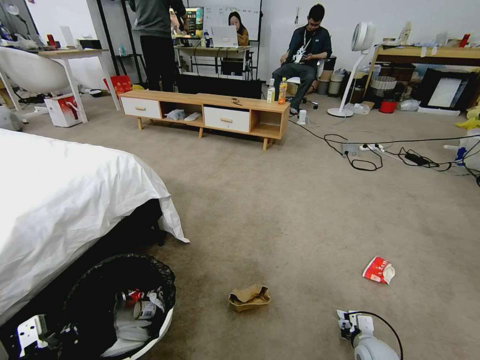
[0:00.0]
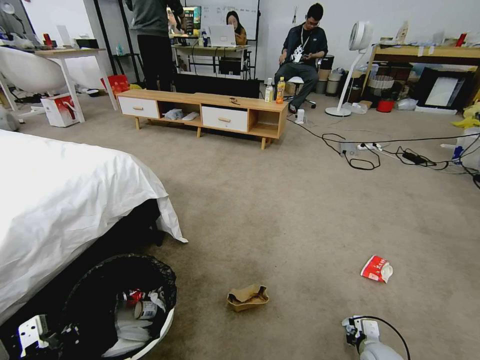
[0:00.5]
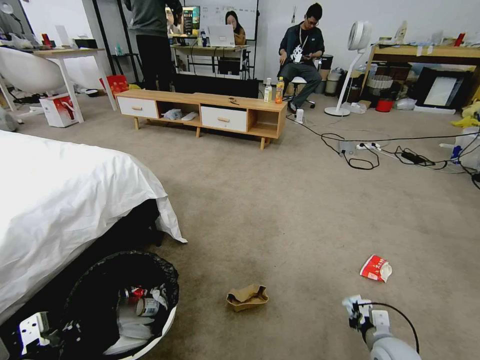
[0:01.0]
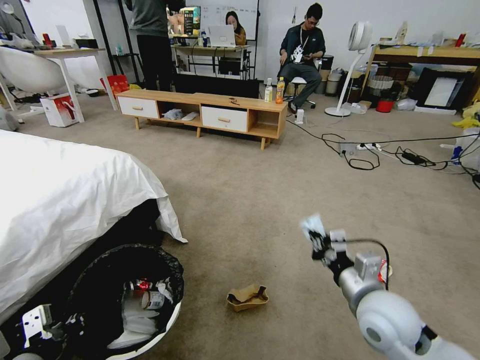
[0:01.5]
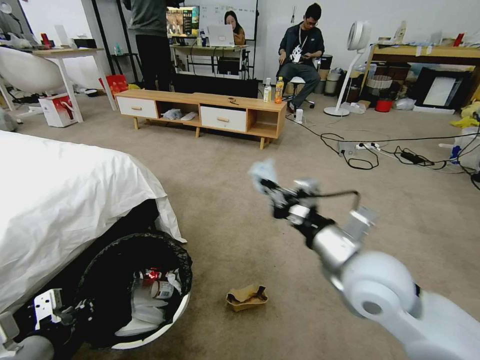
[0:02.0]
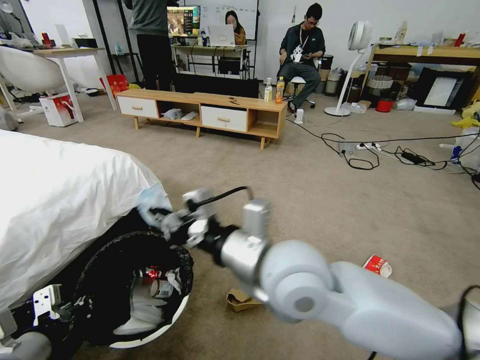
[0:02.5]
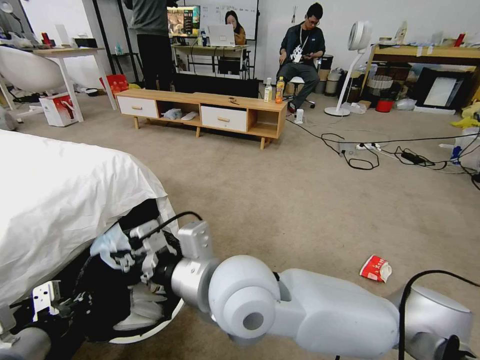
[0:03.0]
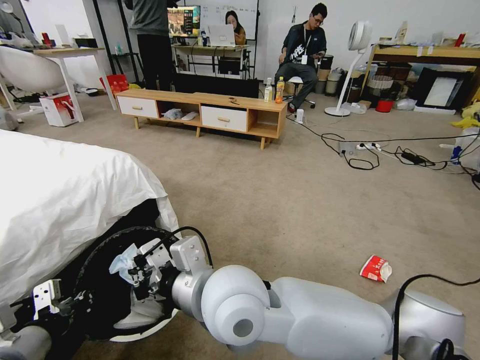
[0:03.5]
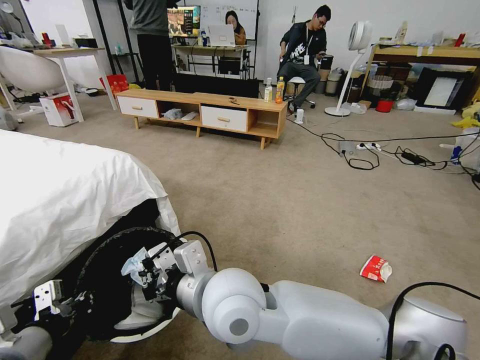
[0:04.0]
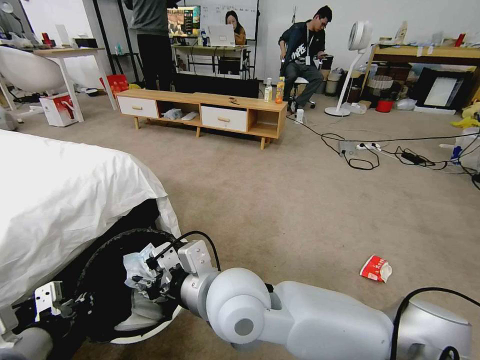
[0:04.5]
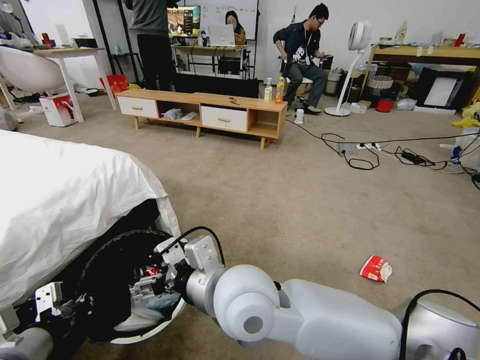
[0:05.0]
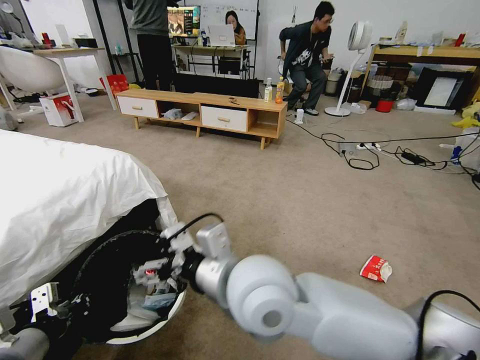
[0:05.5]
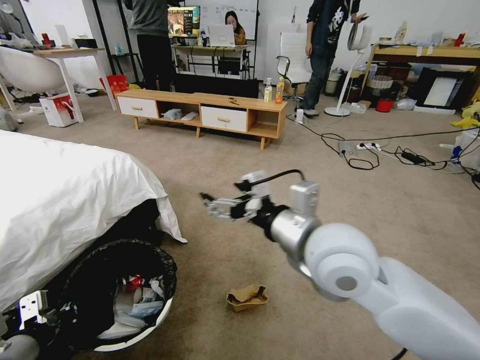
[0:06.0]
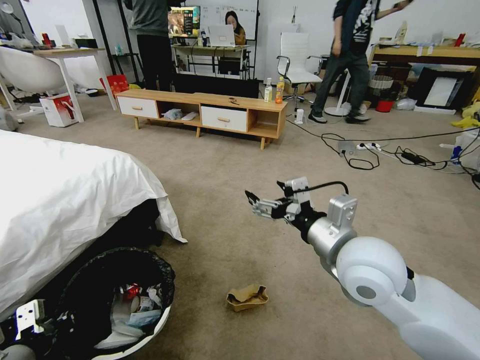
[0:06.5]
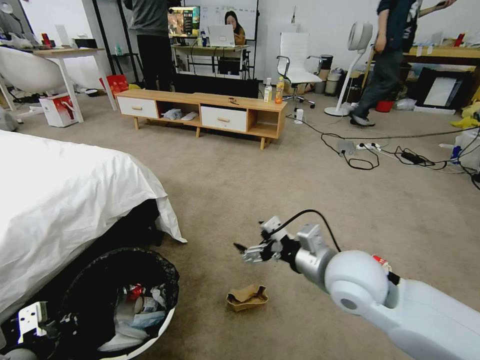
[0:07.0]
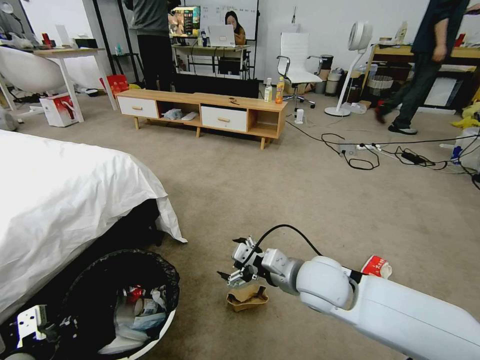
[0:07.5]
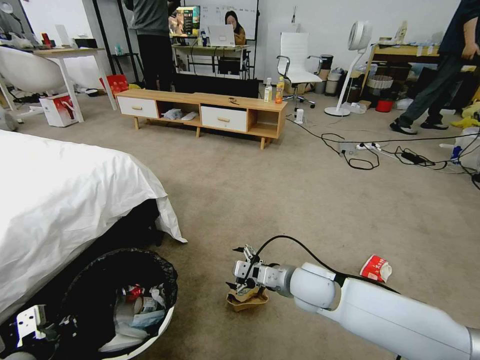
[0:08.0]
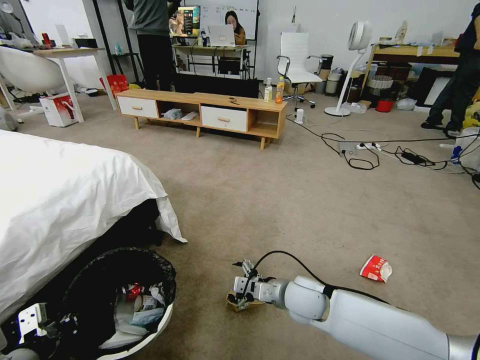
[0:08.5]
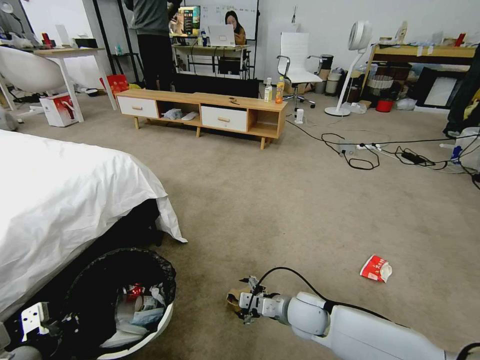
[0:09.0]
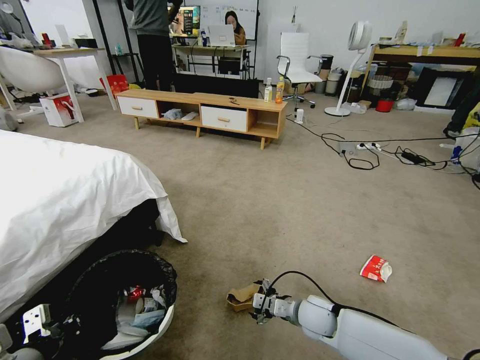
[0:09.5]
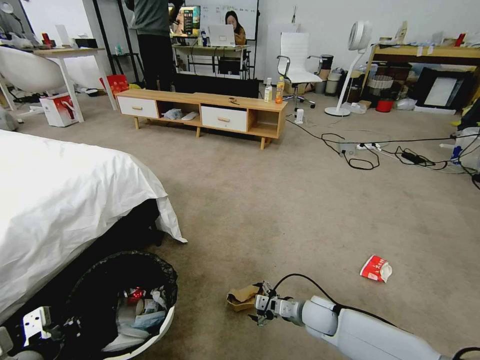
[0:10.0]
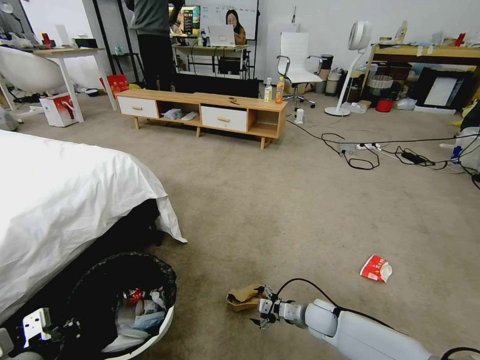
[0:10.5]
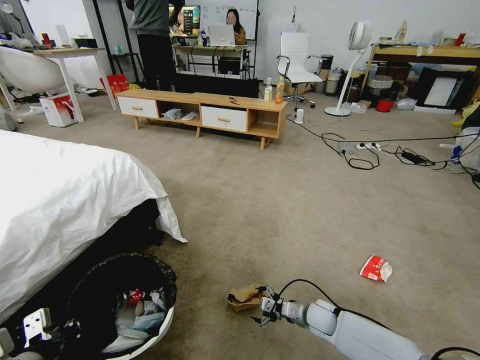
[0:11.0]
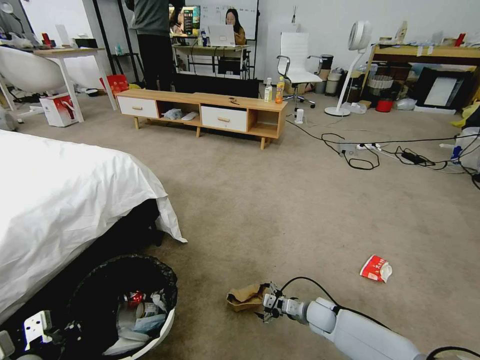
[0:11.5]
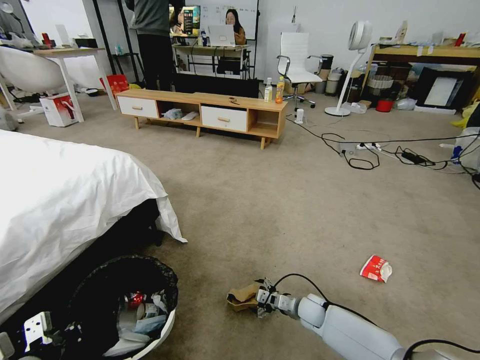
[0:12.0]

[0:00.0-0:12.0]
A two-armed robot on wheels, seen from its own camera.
Task of the whole recording: Pick up the trash bin and place the garbage on the floor into it.
0.0 to 2.0 s: The right gripper goes about 40 cm upward and to the left.
2.0 to 4.0 s: The right gripper shifts approximately 20 cm to the left.
4.0 to 6.0 s: The right gripper goes about 15 cm to the right and upward, and opens up.
6.0 to 8.0 s: The right gripper heads downward, covering some 20 cm.
8.0 to 10.0 s: The right gripper is displaced downward by roughly 15 cm.
10.0 to 12.0 s: The right gripper heads downward, covering approximately 5 cm.

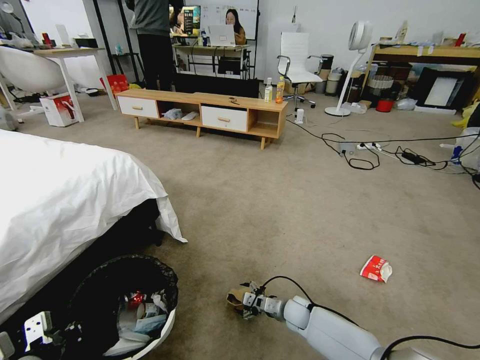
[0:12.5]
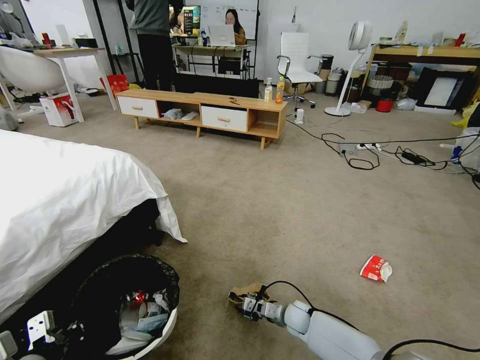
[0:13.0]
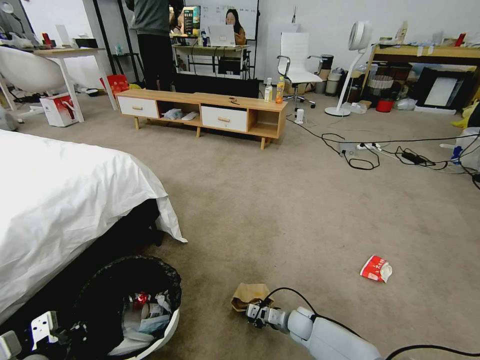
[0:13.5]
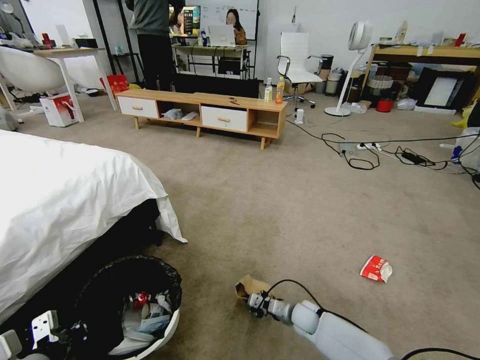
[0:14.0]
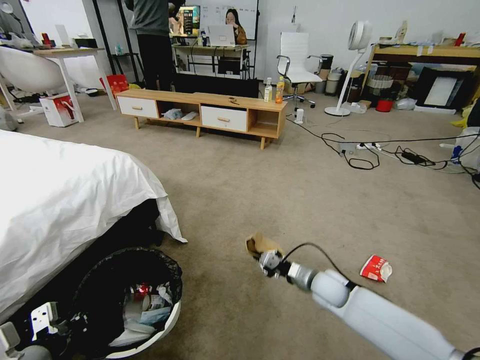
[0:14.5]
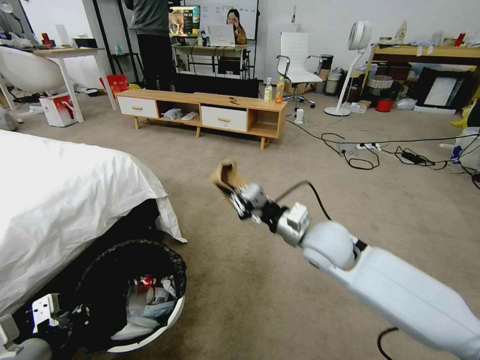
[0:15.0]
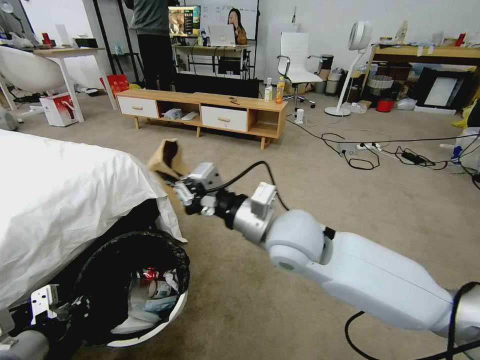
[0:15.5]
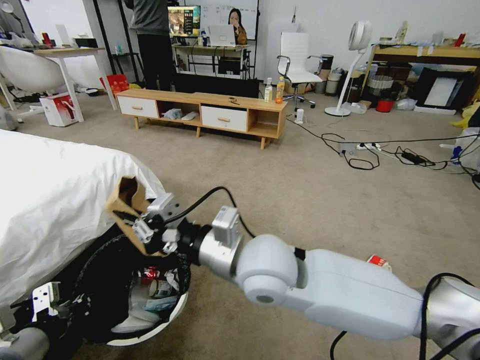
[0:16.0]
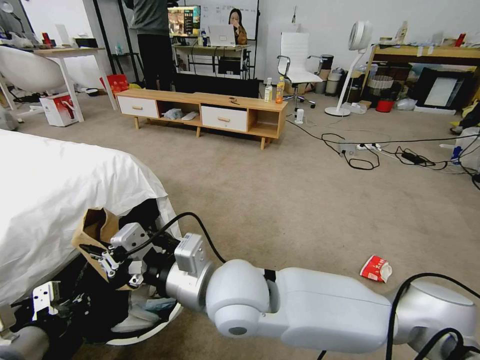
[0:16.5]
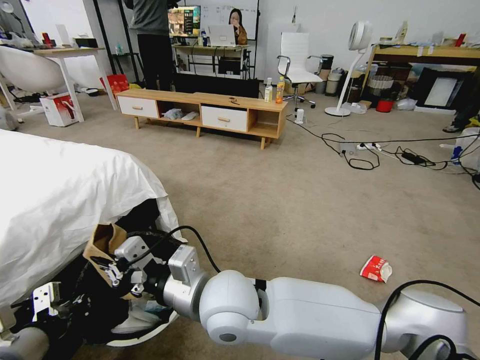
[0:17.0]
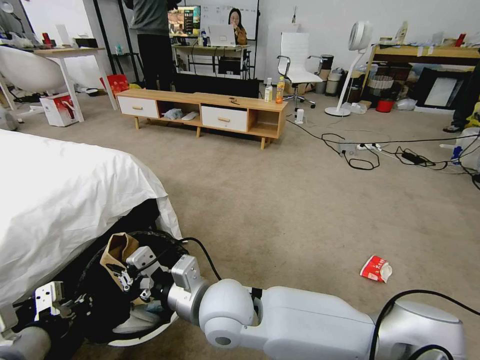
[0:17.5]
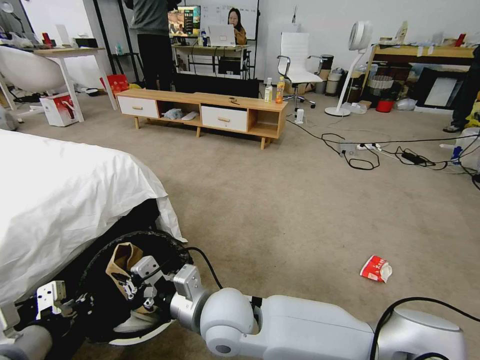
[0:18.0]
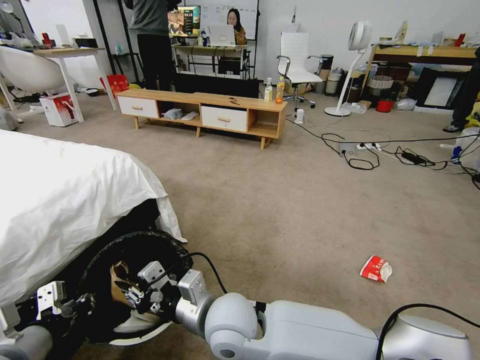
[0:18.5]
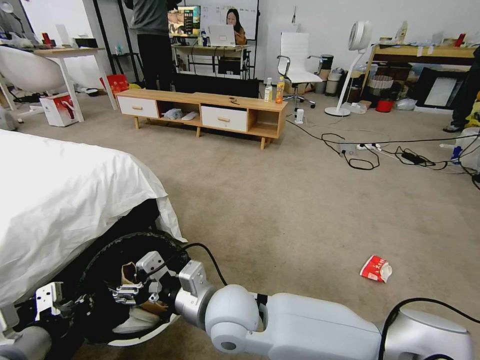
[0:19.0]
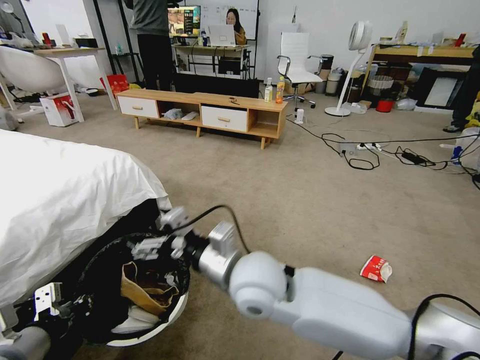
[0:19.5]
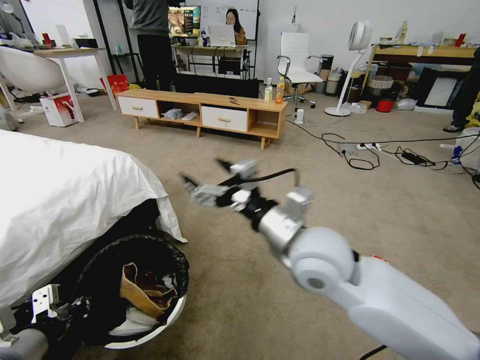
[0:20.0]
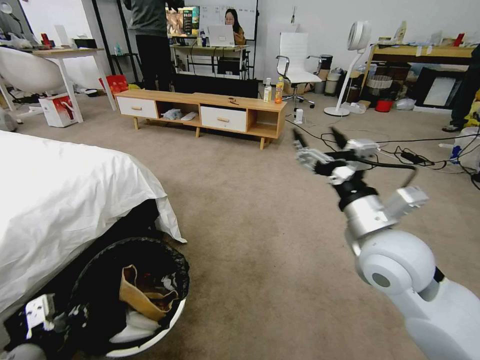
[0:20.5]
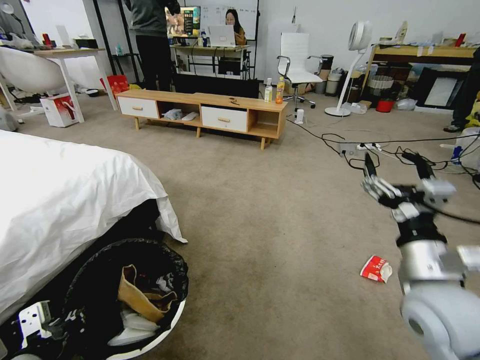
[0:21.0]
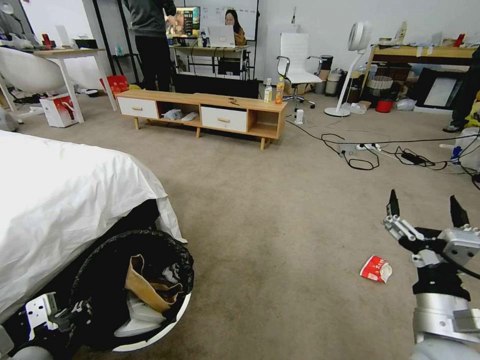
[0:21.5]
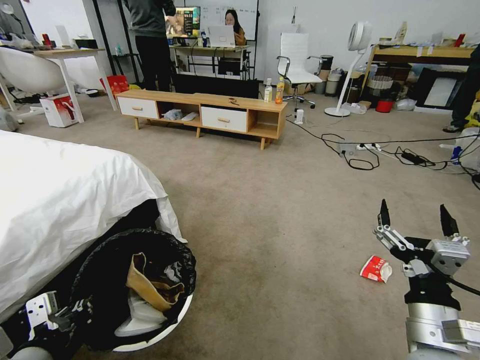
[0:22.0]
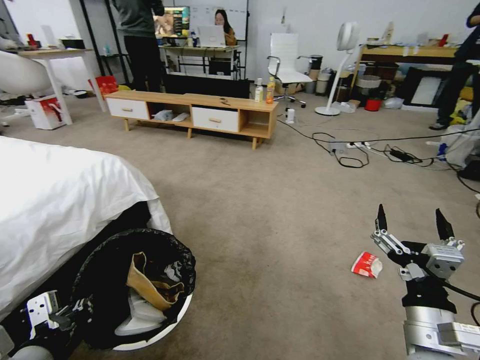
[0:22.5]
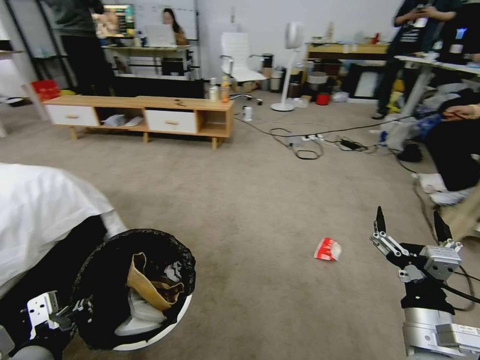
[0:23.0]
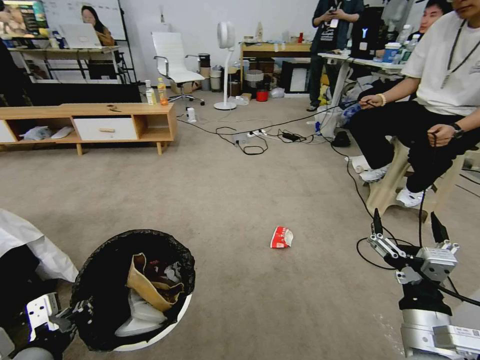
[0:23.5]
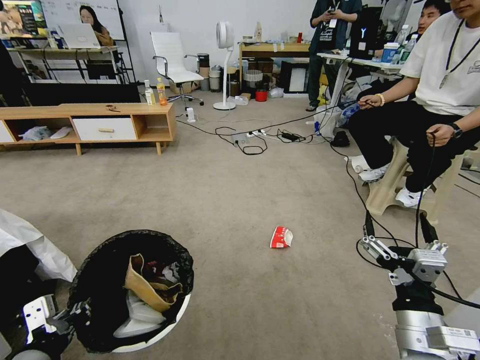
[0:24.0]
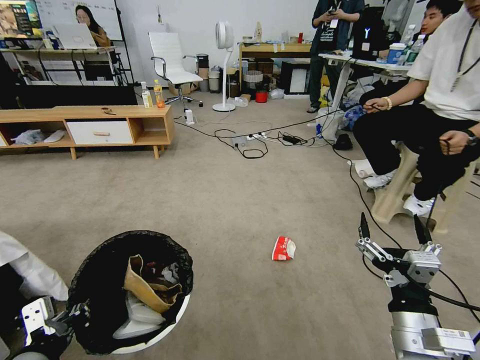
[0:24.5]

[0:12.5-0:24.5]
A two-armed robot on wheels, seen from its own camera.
Task of the whole recording: Pick up the trash bin and place the garbage on the floor into it.
12.5 to 14.5 s: The right gripper goes about 15 cm upward and to the right, and closes.
14.5 to 16.5 s: The right gripper travels upward, to the left and backward by some 40 cm.
16.5 to 18.5 s: The right gripper goes approximately 10 cm downward.
18.5 to 20.5 s: The right gripper goes approximately 30 cm to the right and upward, and opens.
20.5 to 22.5 s: The right gripper is displaced backward and downward by roughly 20 cm.

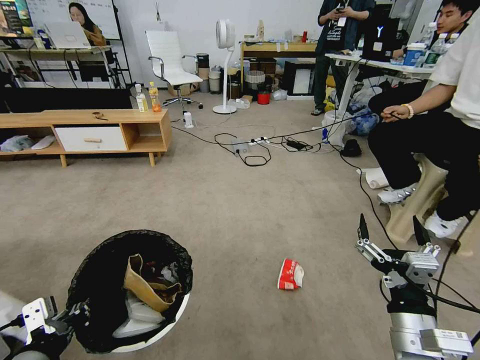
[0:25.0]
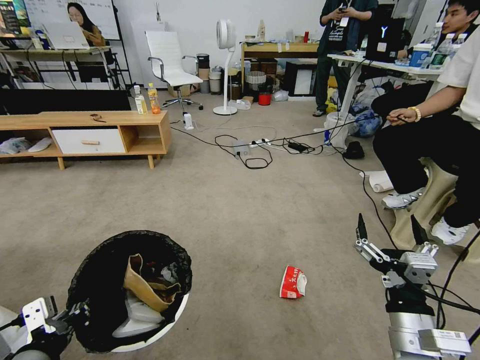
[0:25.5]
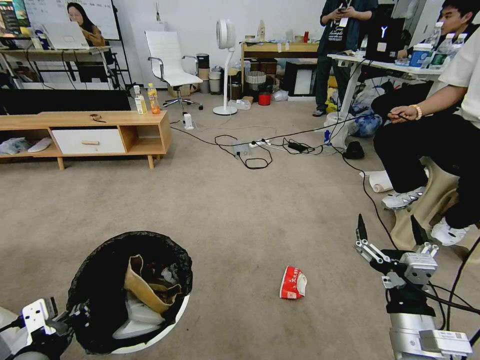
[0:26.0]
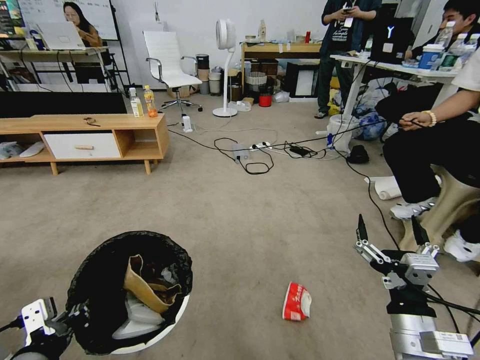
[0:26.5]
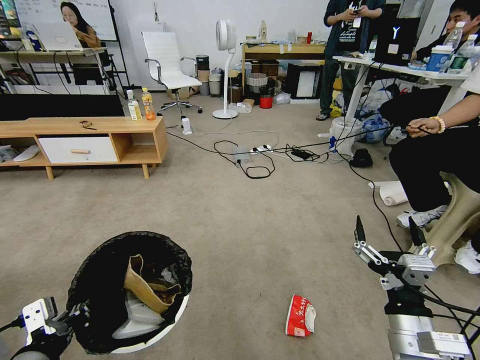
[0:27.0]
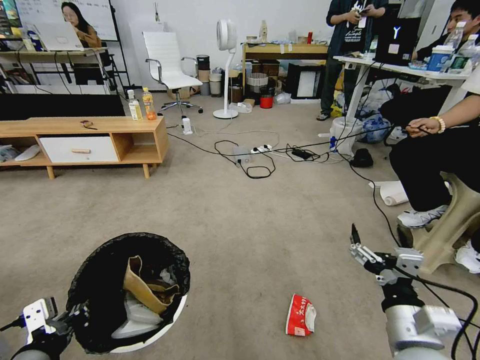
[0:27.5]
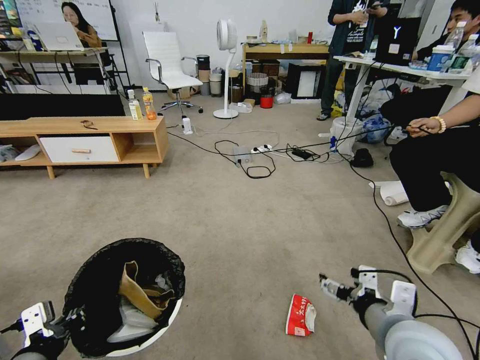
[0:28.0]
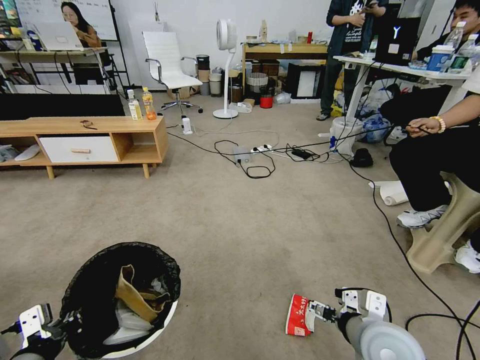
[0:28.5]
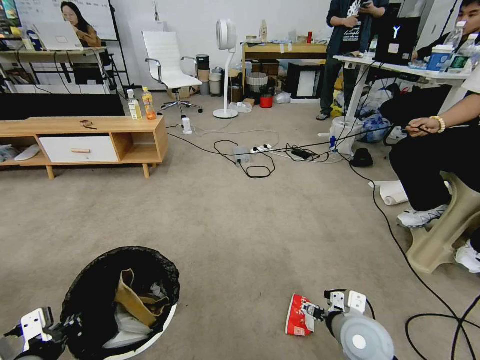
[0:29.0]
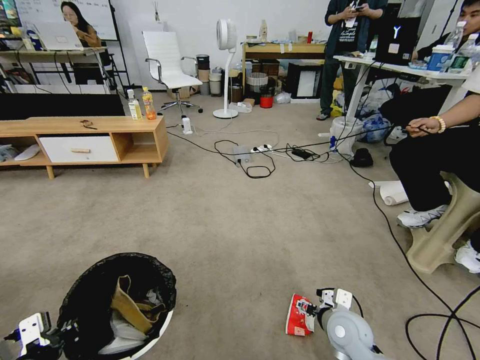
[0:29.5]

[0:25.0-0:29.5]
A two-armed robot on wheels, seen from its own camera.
Task of the whole recording: Pick up the trash bin and place the garbage on the floor into it.
27.0 to 29.5 s: The right gripper is displaced downward and forward by about 20 cm. Meanwhile the left gripper shifts by roughly 5 cm.
